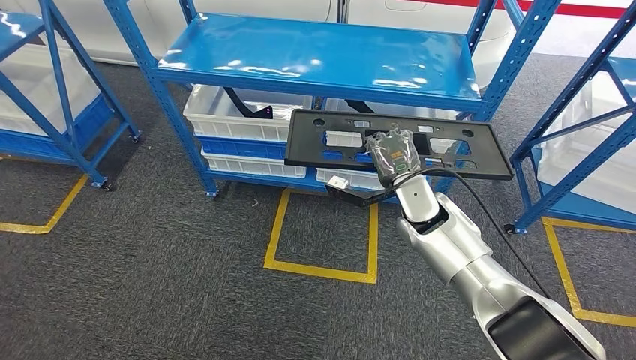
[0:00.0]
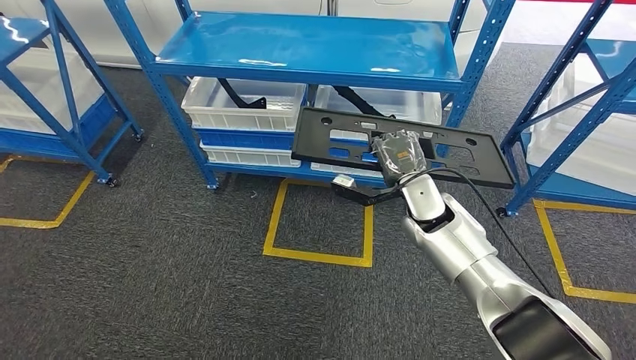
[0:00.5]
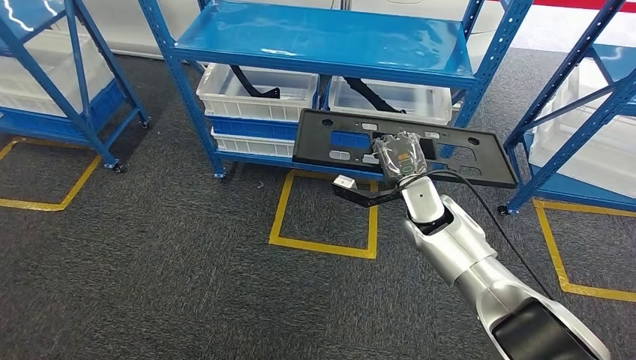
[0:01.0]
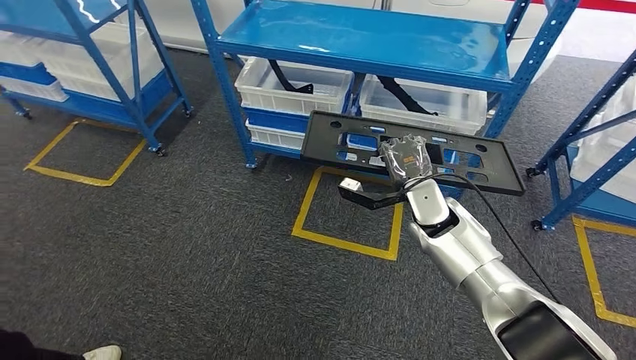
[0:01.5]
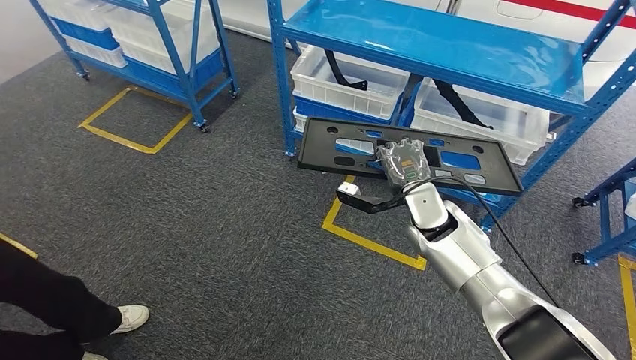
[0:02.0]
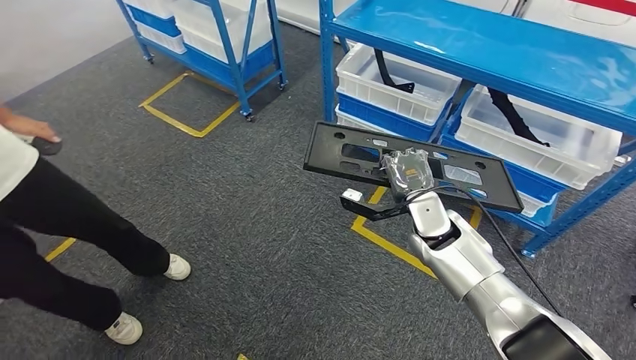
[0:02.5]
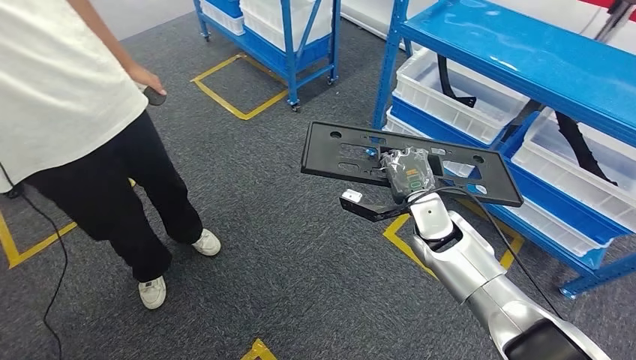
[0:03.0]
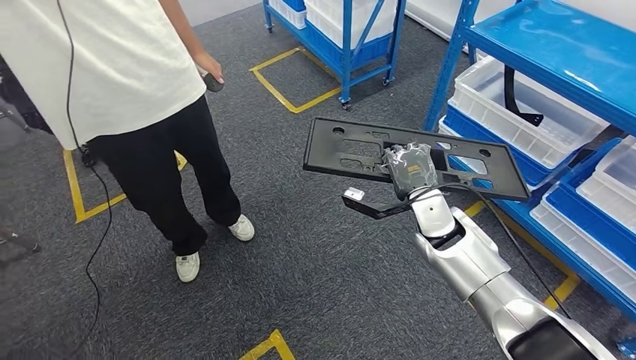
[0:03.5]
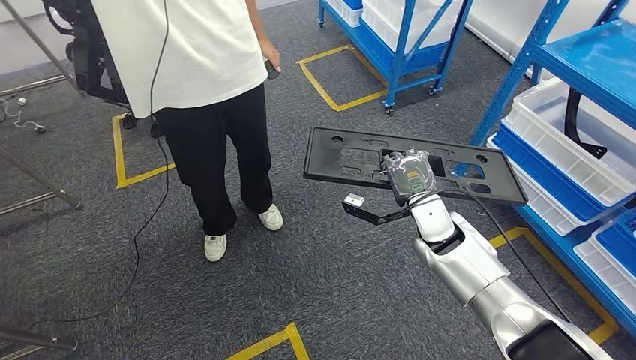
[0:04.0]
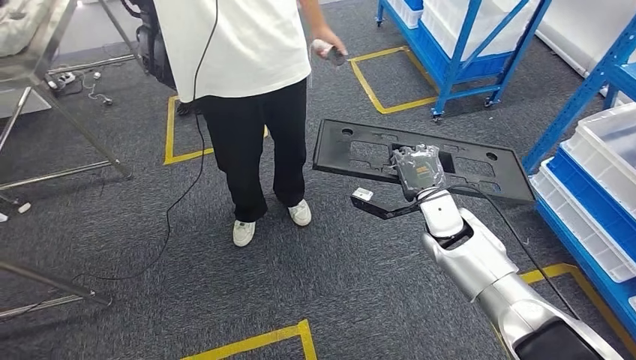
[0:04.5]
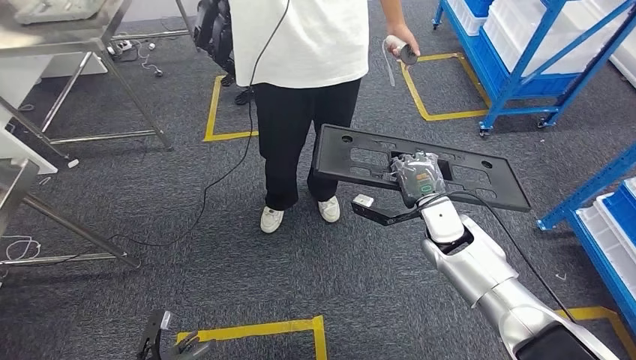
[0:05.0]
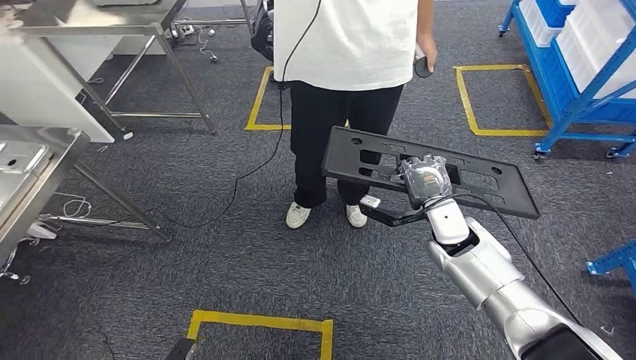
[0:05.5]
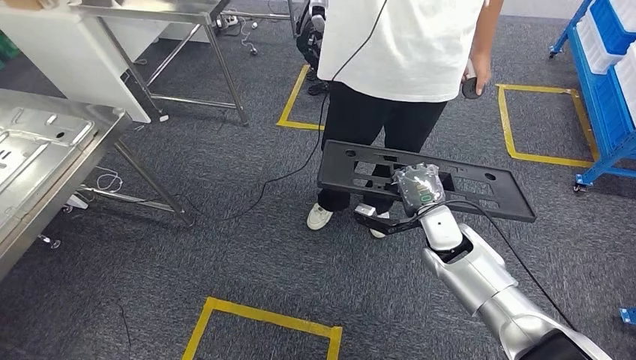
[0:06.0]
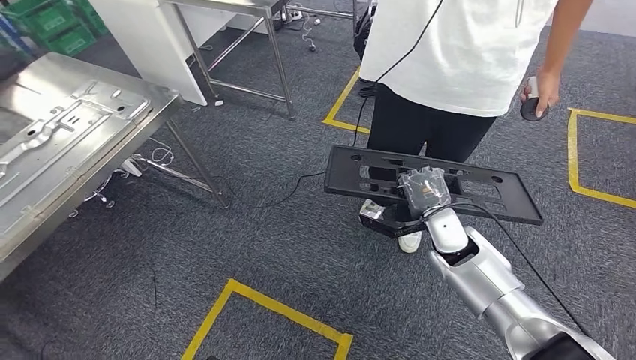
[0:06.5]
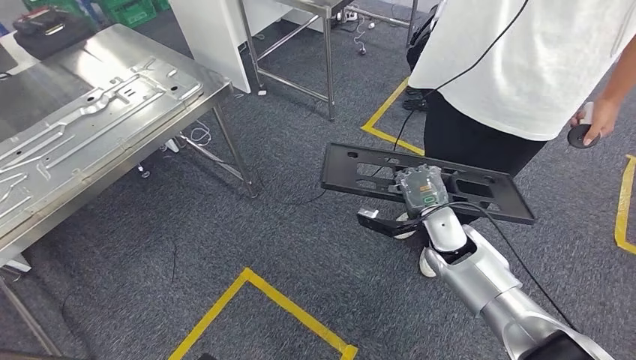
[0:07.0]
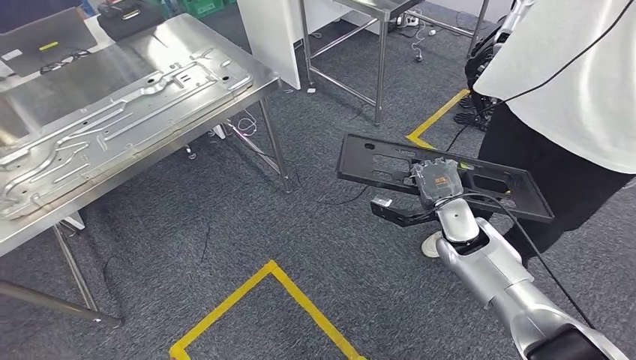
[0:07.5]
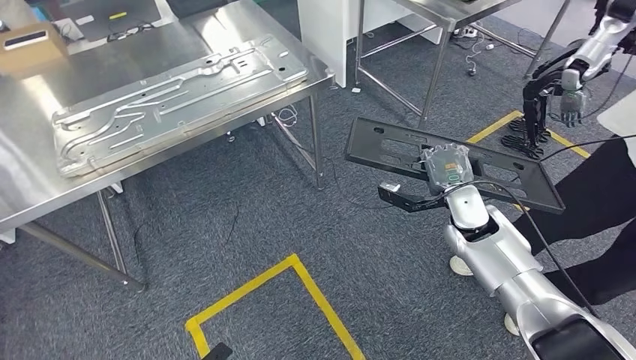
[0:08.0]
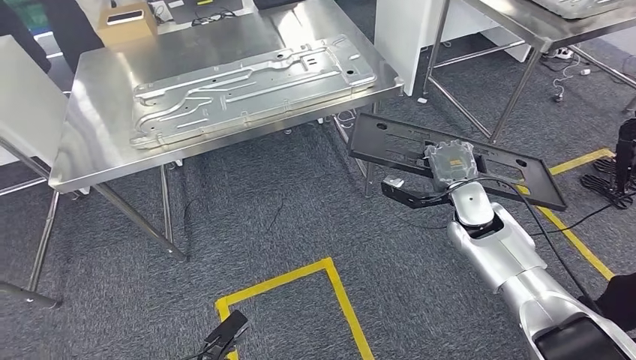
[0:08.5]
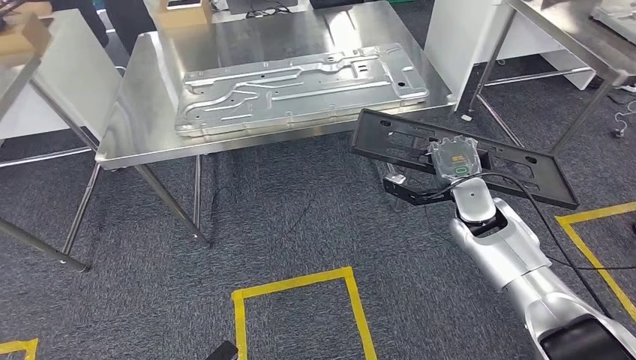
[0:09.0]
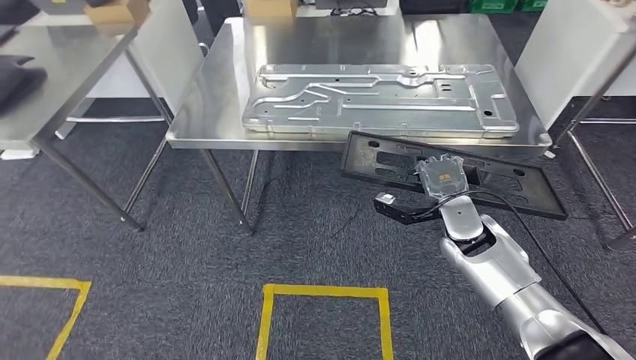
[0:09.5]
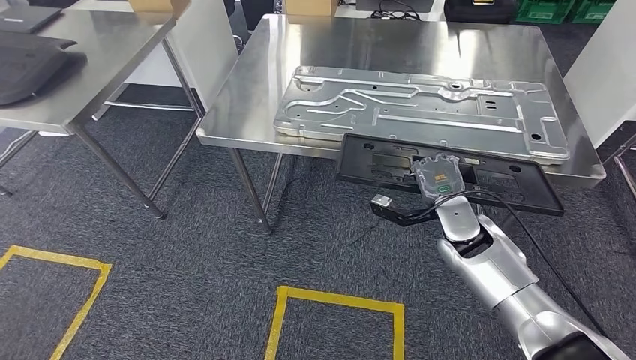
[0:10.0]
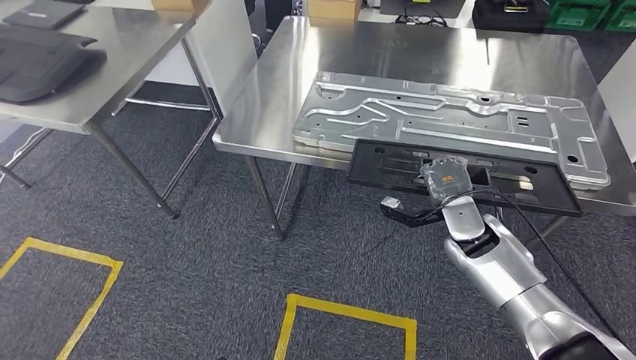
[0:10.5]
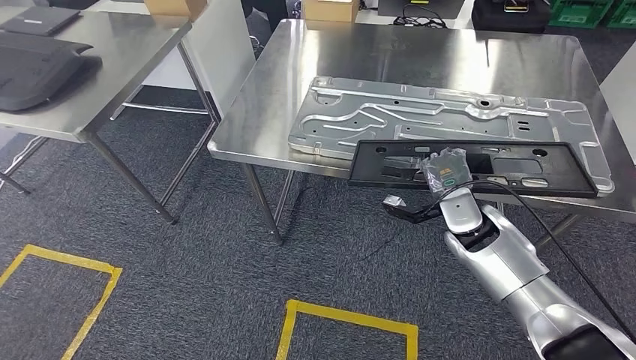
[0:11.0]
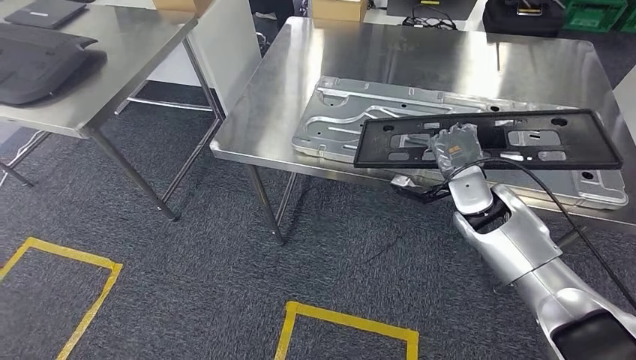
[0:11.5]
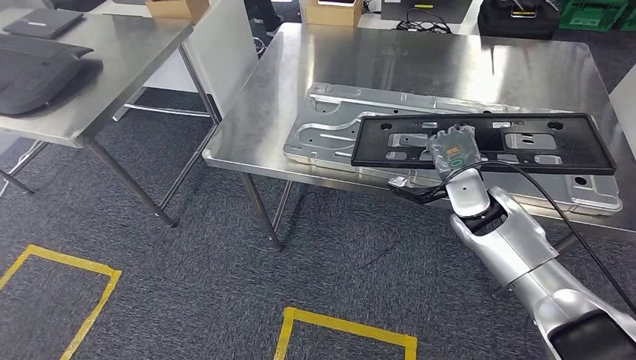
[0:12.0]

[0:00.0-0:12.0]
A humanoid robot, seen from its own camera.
Step, 0:00.0 to 0:11.0: Move the large material to the workbench.

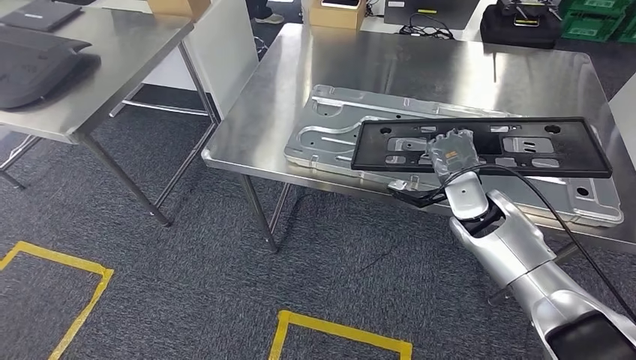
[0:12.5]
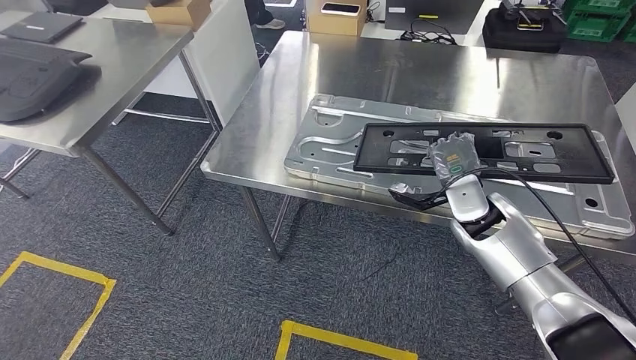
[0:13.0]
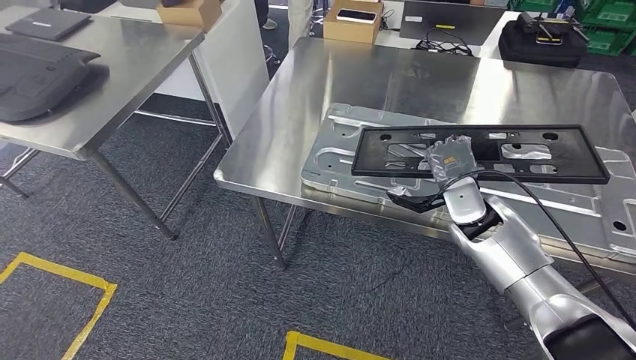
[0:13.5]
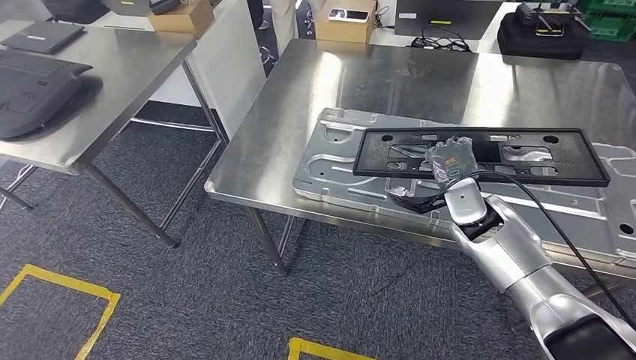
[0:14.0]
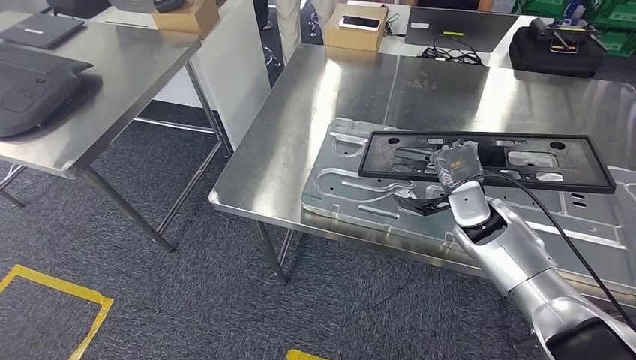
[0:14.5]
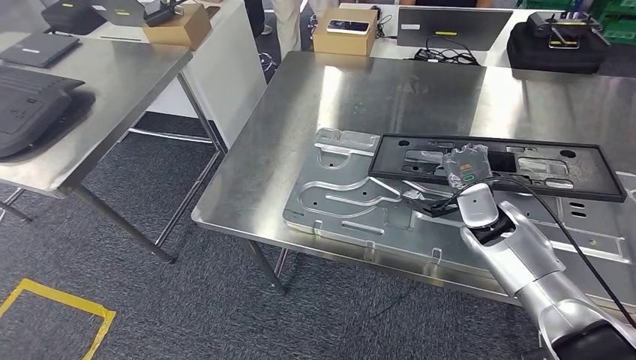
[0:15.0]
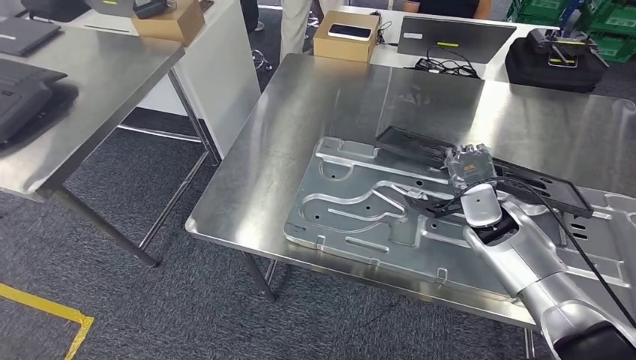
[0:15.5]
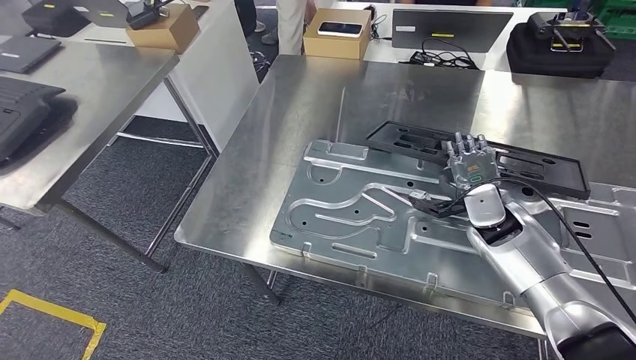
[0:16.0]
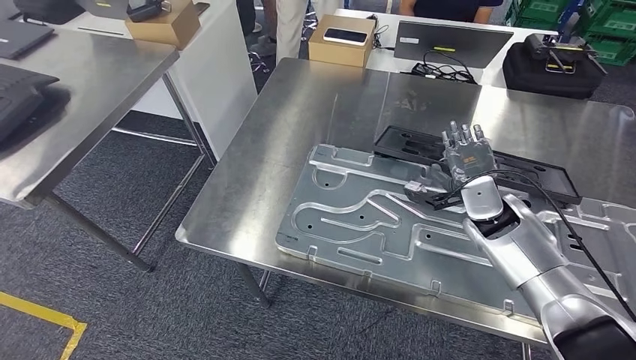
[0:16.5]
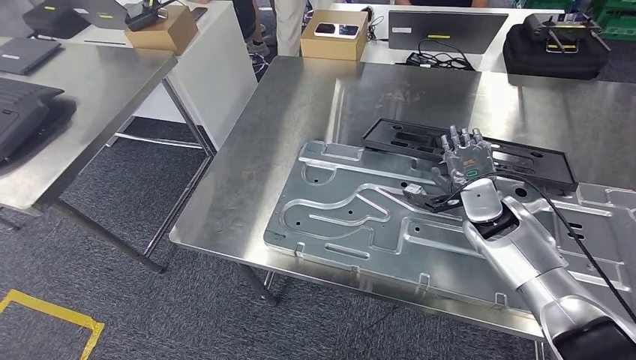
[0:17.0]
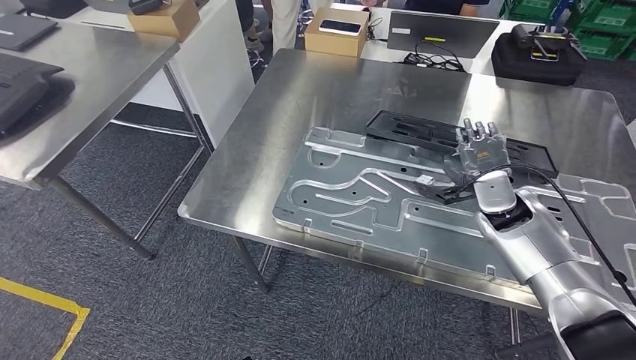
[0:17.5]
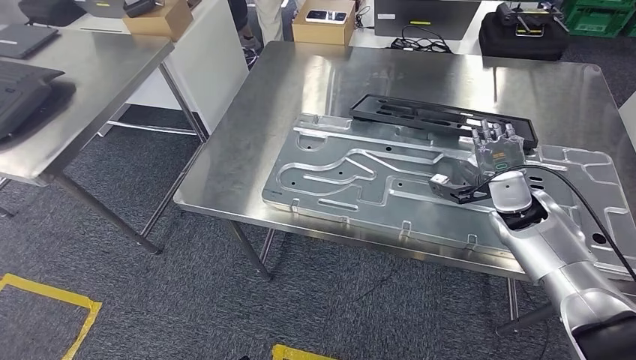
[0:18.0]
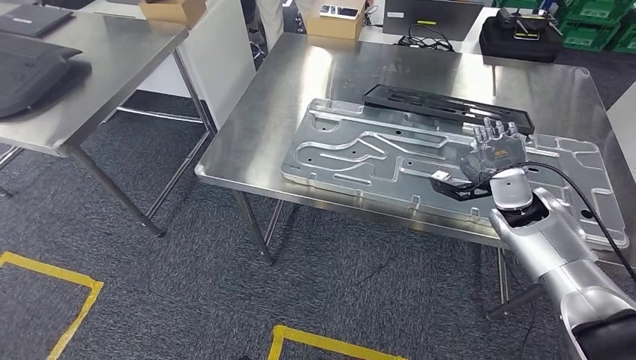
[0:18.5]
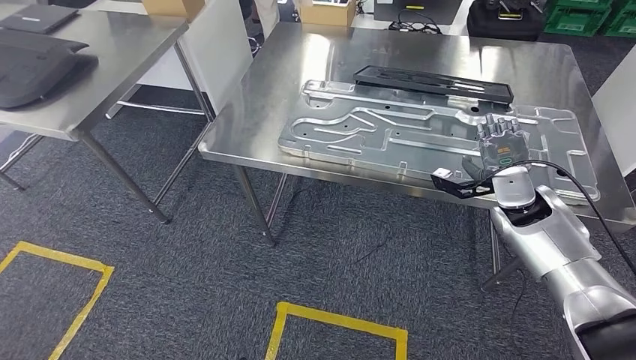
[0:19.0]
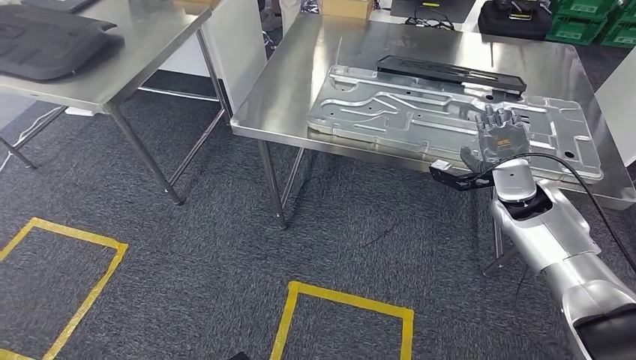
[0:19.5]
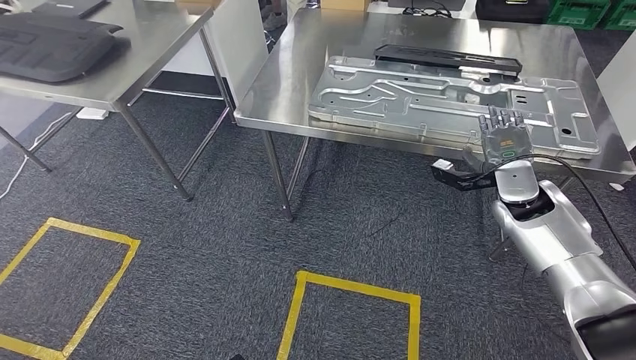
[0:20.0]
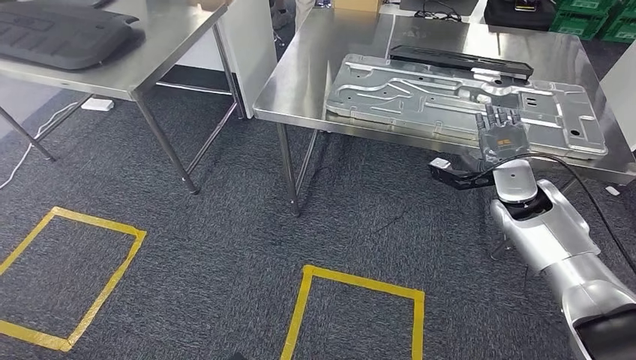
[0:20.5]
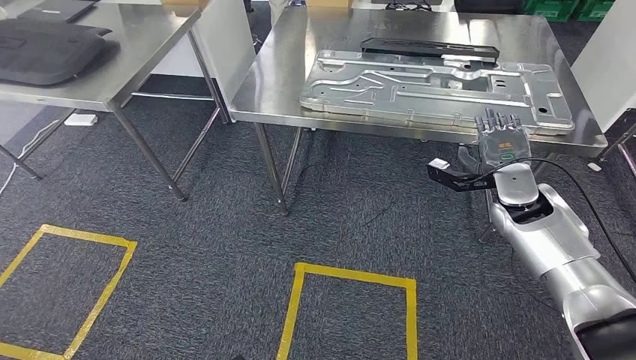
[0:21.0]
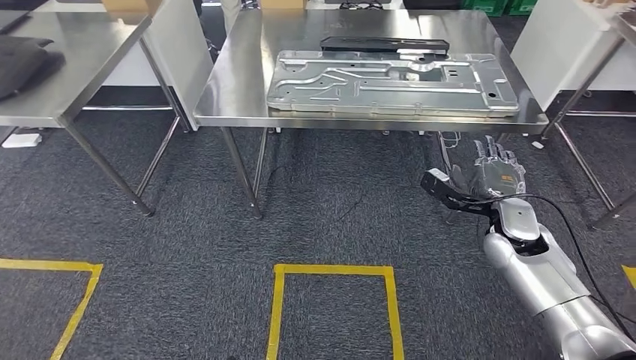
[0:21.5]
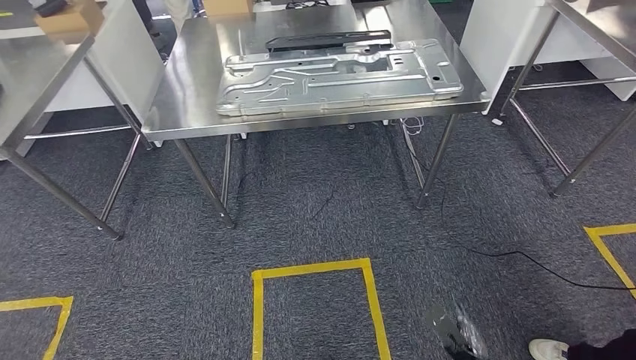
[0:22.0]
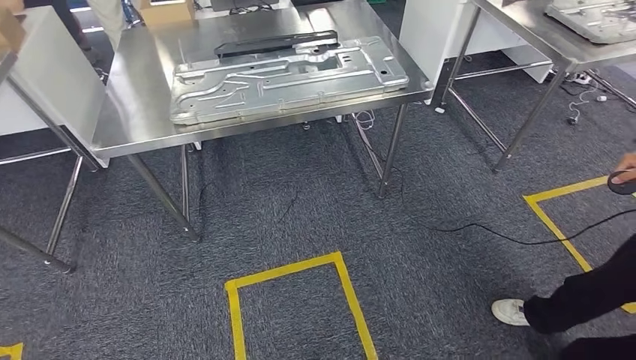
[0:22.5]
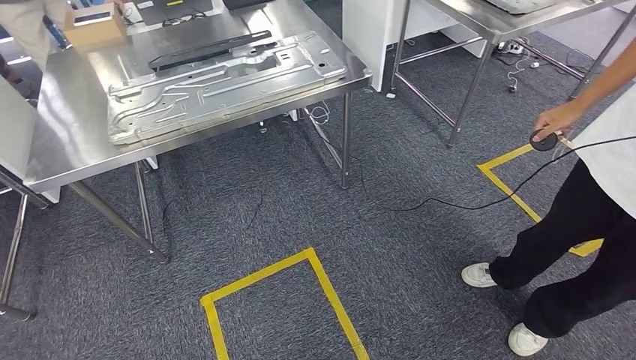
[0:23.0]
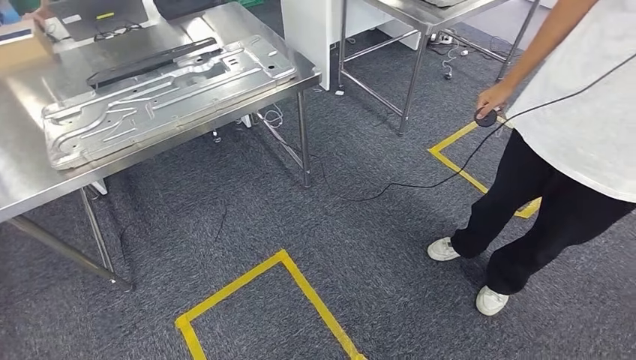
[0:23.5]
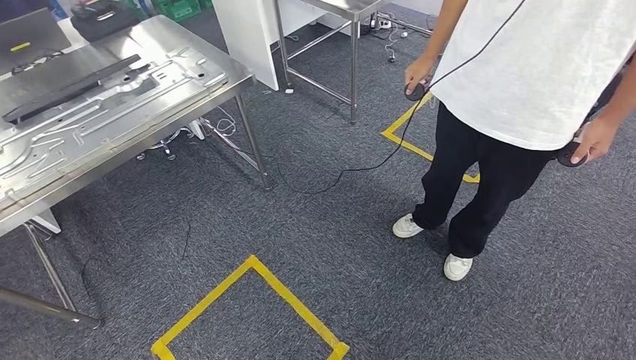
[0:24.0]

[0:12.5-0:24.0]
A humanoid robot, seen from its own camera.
Step, 0:12.5 to 0:20.5: Insert the large material into the corresponding slot on the workbench.
